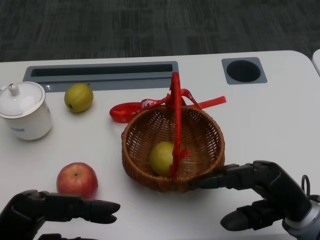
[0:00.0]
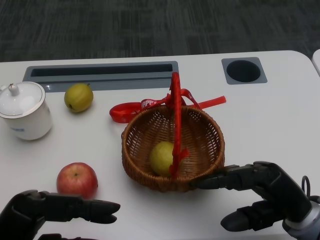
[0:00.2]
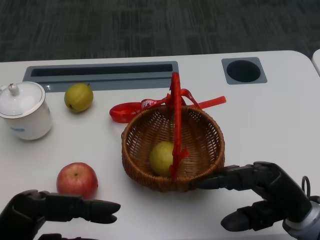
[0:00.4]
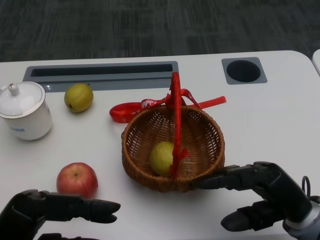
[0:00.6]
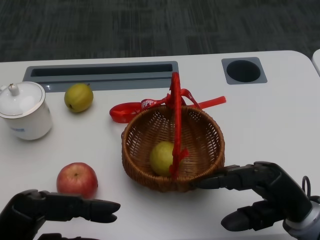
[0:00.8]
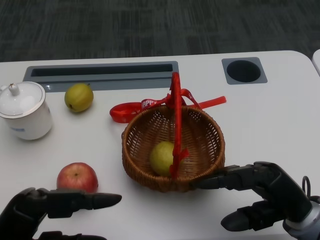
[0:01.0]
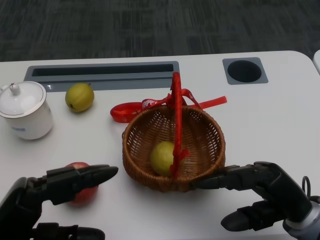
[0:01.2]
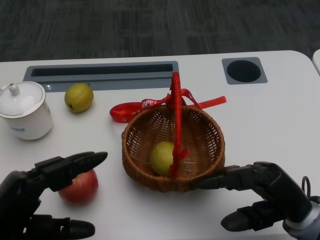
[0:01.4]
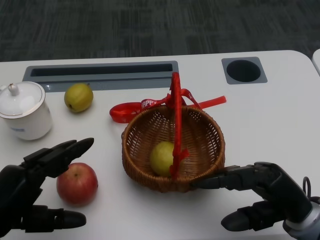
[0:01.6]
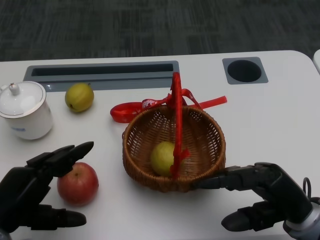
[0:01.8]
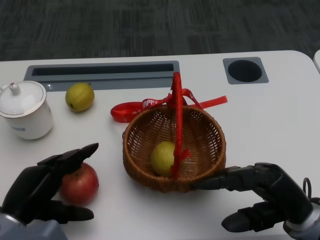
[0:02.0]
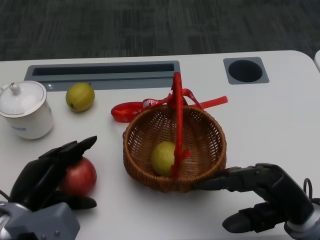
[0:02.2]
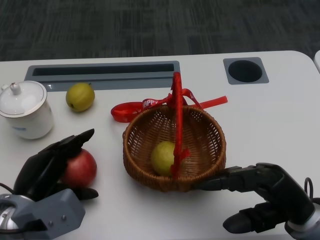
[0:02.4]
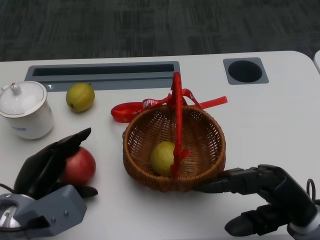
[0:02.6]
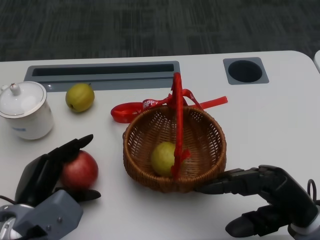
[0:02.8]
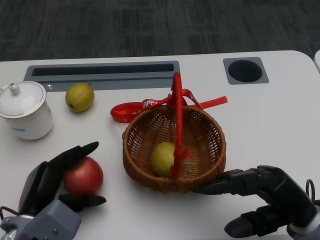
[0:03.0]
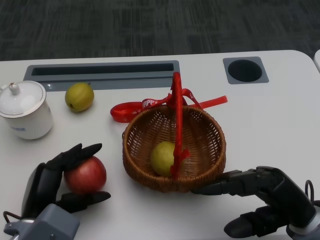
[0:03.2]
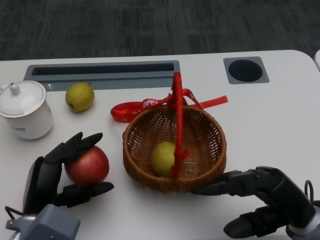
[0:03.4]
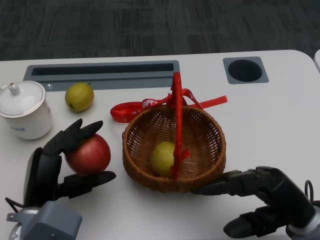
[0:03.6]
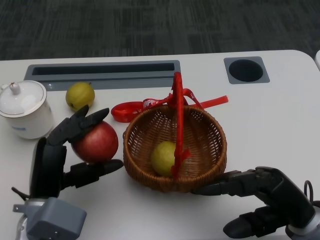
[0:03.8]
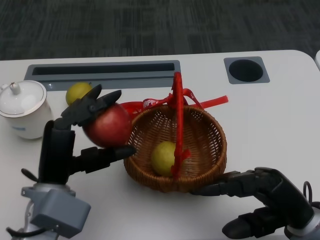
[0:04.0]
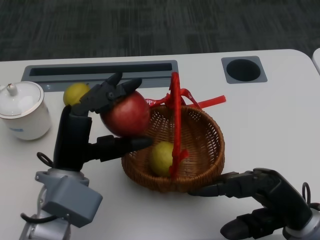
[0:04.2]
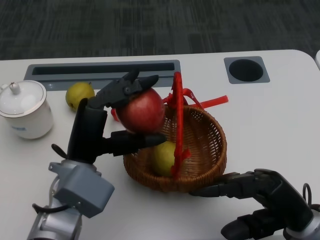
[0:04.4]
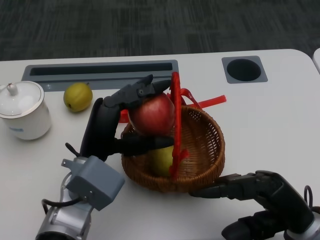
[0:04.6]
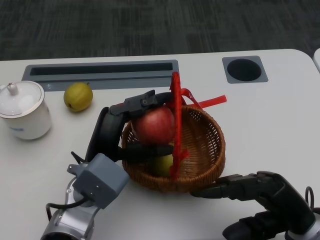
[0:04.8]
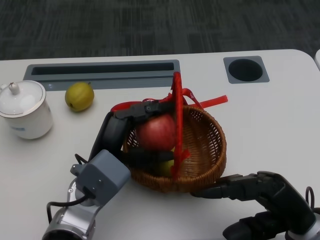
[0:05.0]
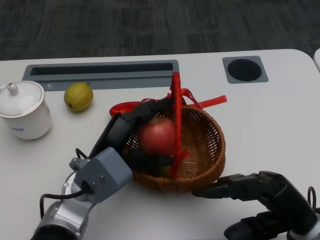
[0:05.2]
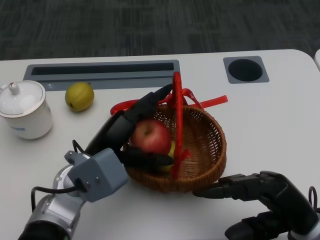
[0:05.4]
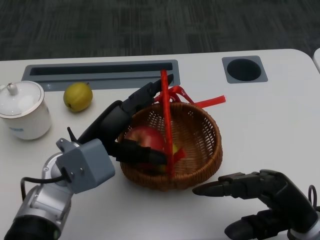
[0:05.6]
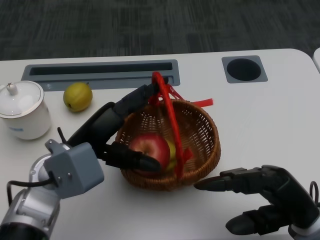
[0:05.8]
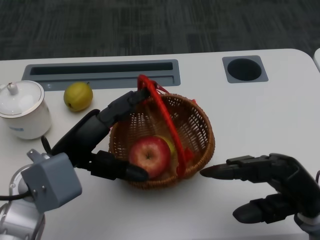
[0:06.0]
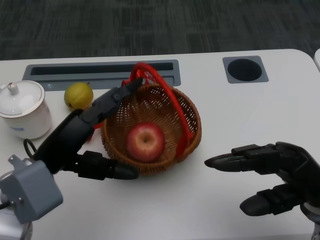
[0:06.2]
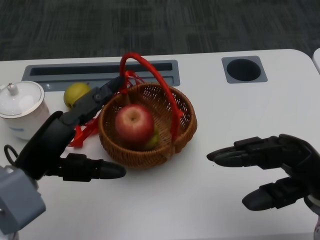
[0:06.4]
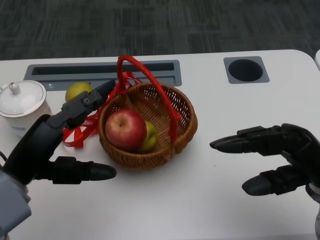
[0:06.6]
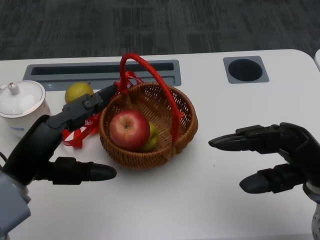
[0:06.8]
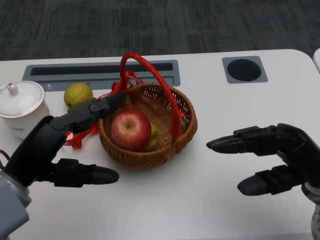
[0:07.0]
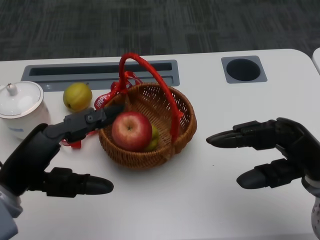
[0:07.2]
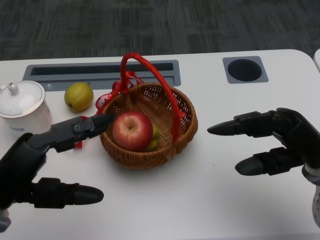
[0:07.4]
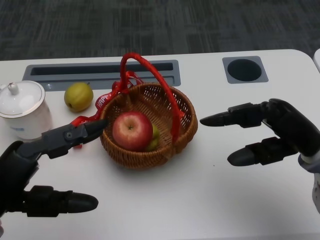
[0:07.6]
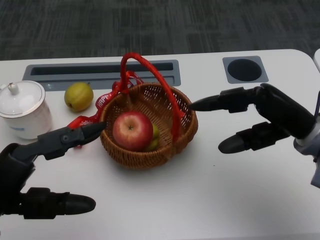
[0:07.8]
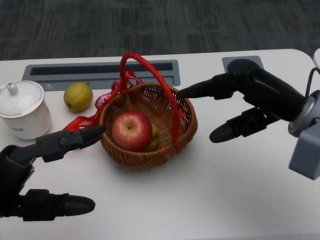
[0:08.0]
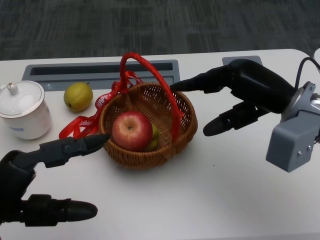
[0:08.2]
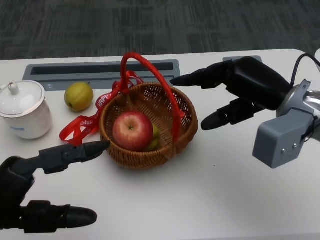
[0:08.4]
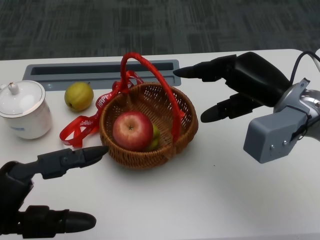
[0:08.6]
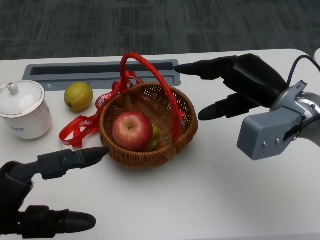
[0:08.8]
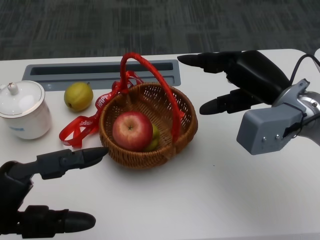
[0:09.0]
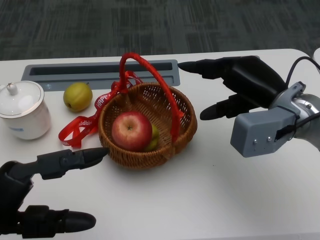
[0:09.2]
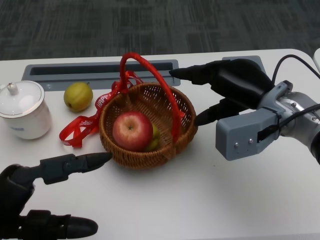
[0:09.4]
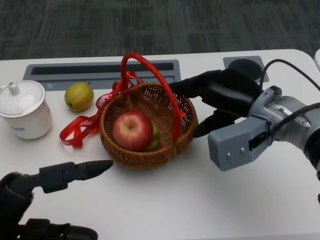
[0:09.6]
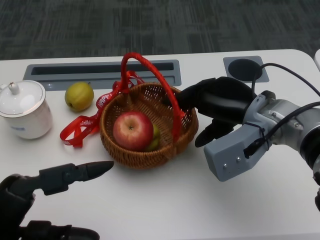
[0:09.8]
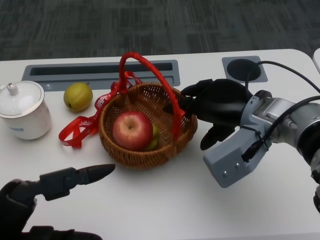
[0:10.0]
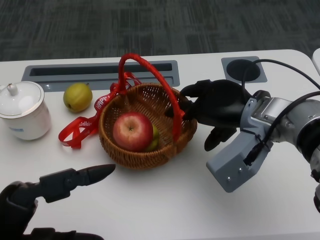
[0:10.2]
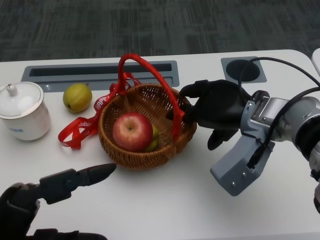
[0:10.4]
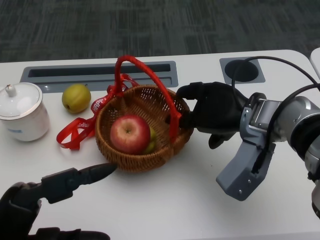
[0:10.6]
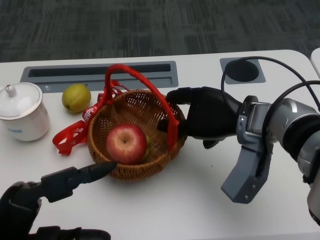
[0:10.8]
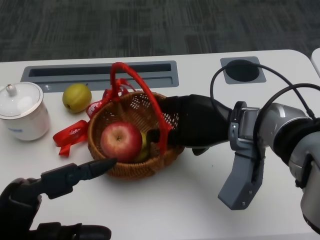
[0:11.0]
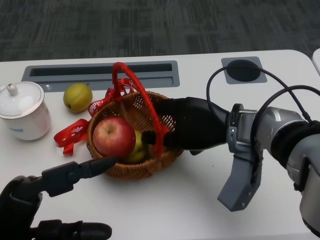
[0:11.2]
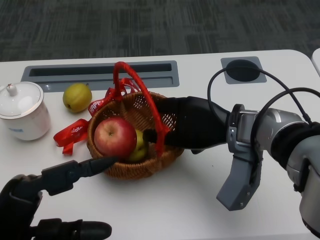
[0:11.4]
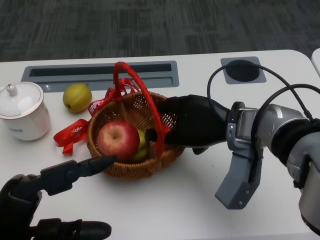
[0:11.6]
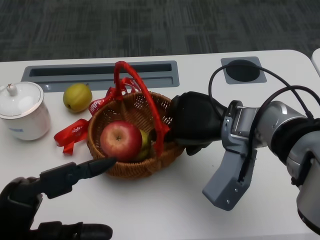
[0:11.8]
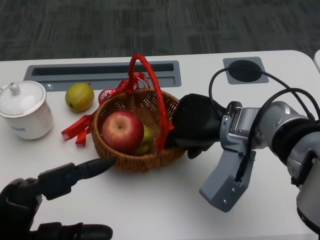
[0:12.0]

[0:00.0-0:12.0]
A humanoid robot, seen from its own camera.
Step, 0:00.8 to 0:02.4: Grasp the apple with the left gripper.
Step, 0:02.6 to 0:04.4: Place the apple into the basket with the left gripper.
Step, 0:04.6 to 0:09.8: Grasp the basket with the right gripper.
Step, 0:10.0 to 0:11.8: Move the basket to the front of the table with the right gripper.
0:01.6 to 0:03.0: The left hand is displaced downward by about 5 cm.
0:03.0 to 0:04.4: The left hand travels upward and to the right by roughly 10 cm.
0:06.0 to 0:07.6: The right hand is displaced forward by some 5 cm. Meanwhile the left hand is displaced backward and to the left by some 10 cm.
0:07.6 to 0:09.0: The right hand moves forward, some 5 cm.

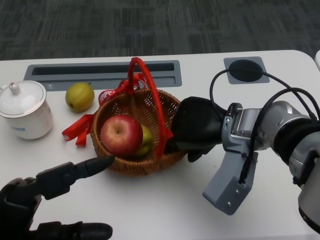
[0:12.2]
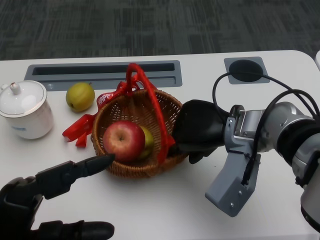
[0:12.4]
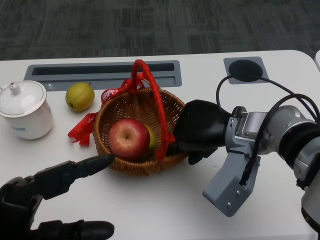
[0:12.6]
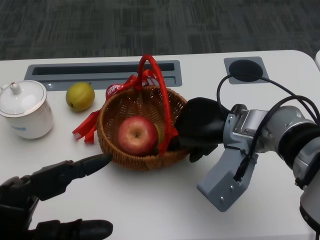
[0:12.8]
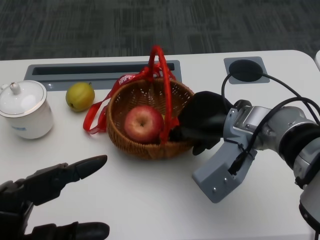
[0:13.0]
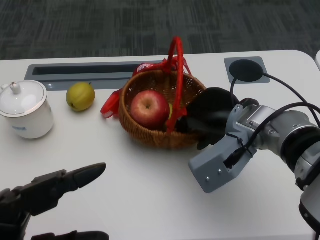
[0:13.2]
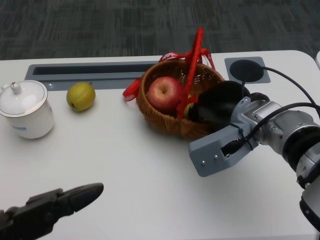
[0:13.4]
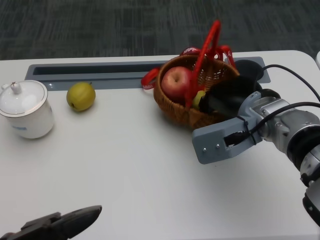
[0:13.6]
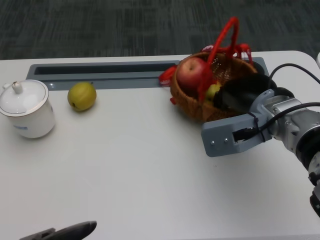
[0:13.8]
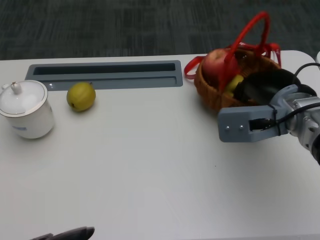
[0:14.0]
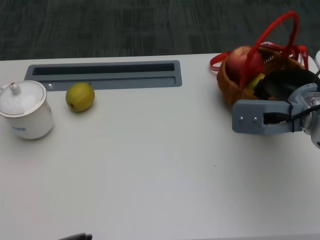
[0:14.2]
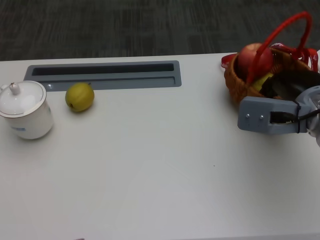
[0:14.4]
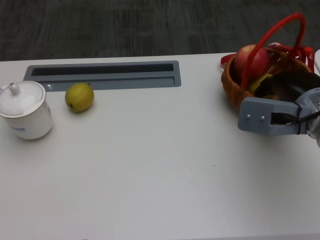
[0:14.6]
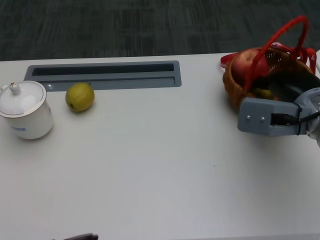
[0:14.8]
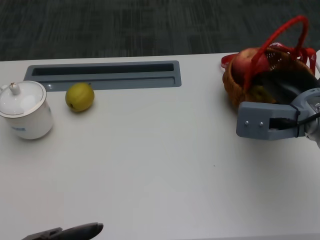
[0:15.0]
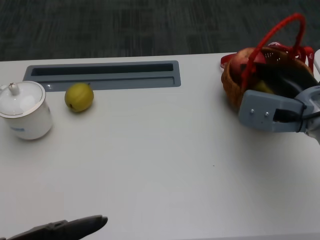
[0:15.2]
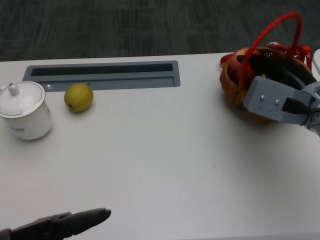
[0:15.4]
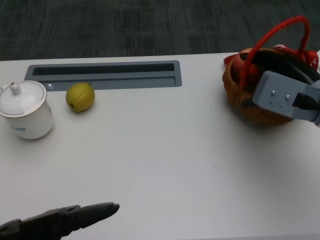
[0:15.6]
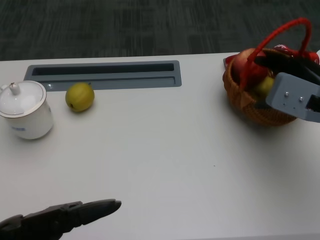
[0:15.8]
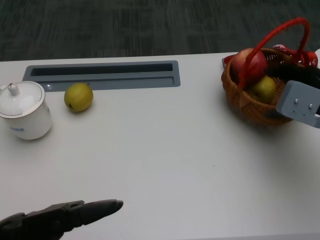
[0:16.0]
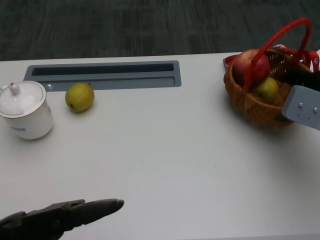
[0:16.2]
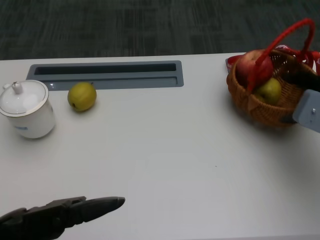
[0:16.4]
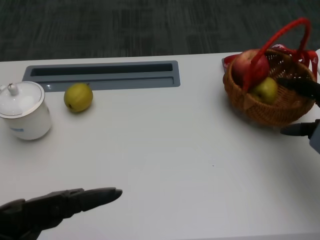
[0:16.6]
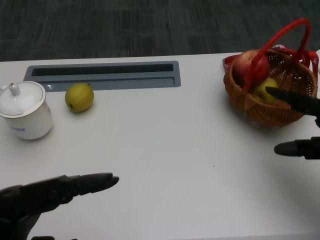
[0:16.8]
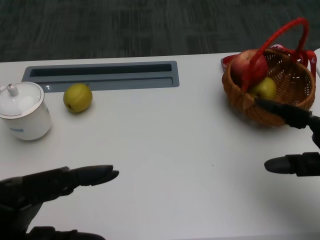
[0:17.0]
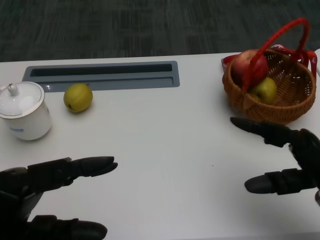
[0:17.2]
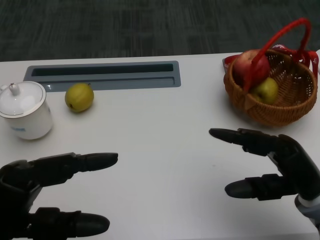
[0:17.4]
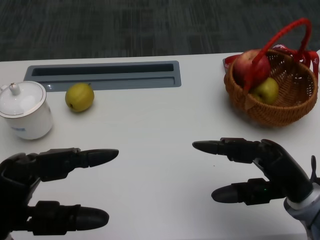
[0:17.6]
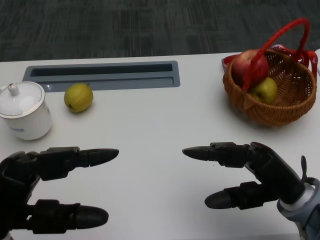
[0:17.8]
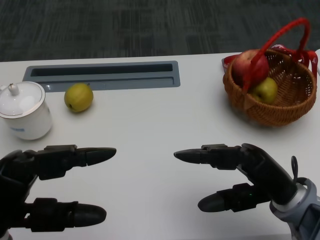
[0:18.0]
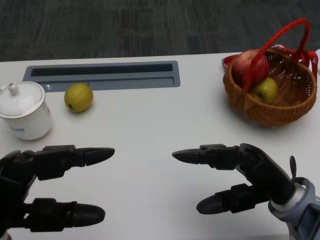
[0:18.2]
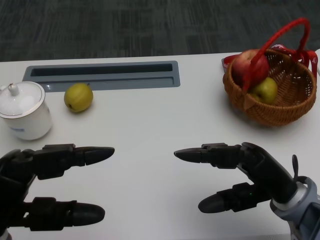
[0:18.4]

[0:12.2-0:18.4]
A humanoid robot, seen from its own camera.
0:12.2 to 0:13.8: The left hand heads backward, covering approximately 10 cm.
0:13.8 to 0:15.4: The right hand moves to the right, about 5 cm.
0:15.4 to 0:16.8: The right hand is displaced to the right and backward by roughly 10 cm; the left hand travels forward by about 5 cm.
0:16.8 to 0:18.4: The right hand is displaced to the left by about 10 cm.
